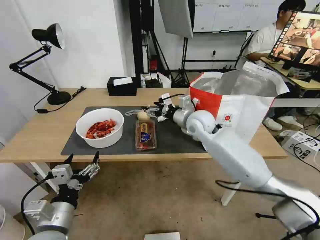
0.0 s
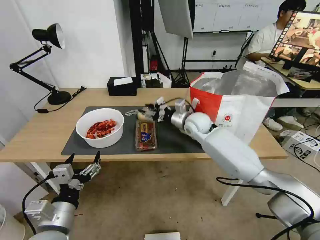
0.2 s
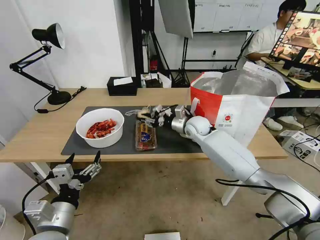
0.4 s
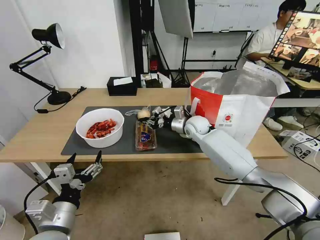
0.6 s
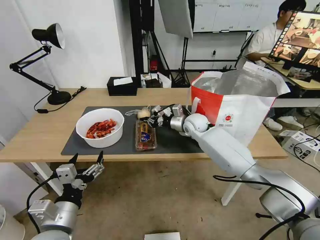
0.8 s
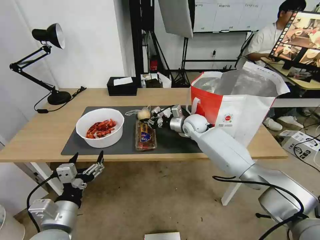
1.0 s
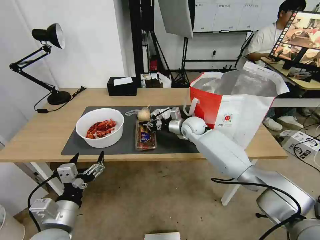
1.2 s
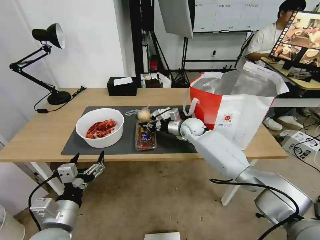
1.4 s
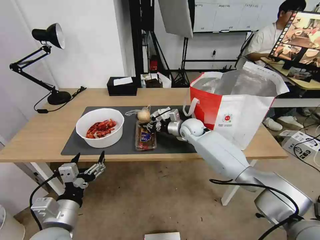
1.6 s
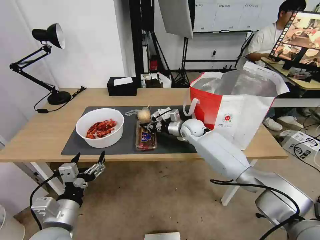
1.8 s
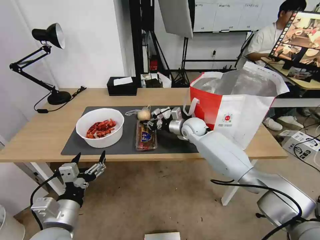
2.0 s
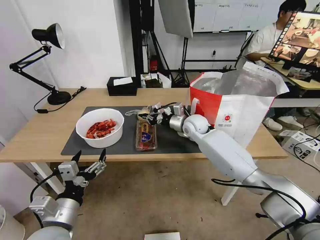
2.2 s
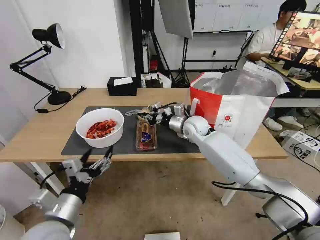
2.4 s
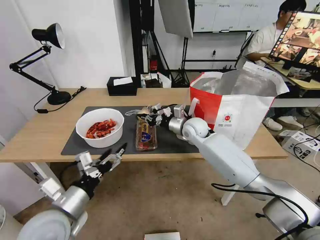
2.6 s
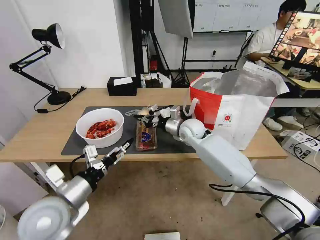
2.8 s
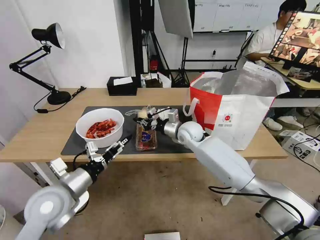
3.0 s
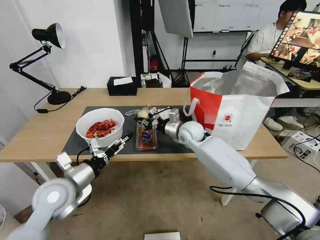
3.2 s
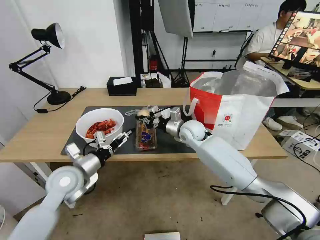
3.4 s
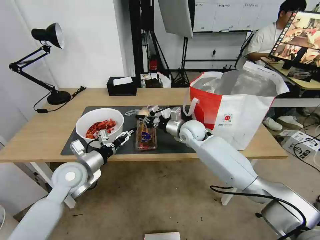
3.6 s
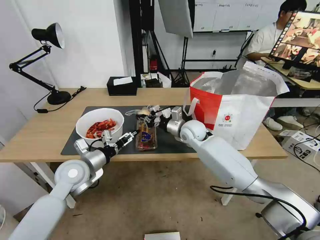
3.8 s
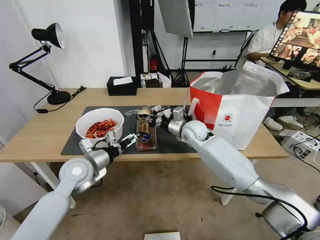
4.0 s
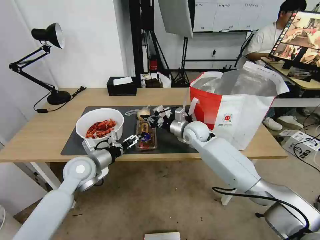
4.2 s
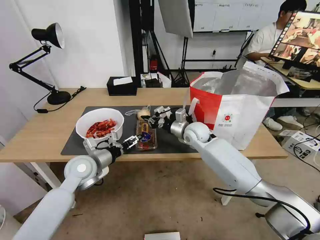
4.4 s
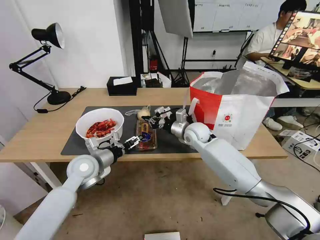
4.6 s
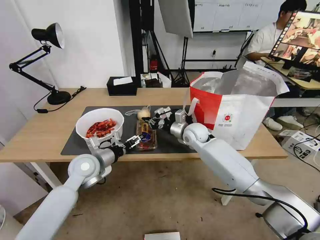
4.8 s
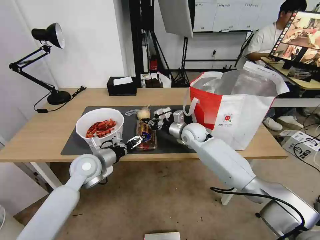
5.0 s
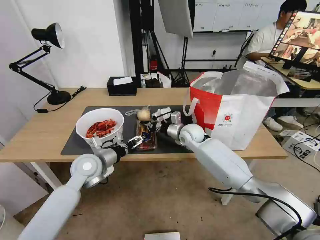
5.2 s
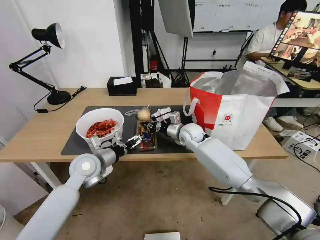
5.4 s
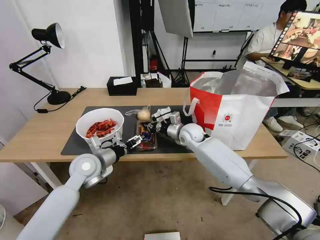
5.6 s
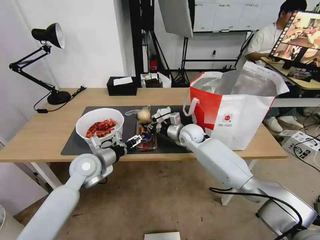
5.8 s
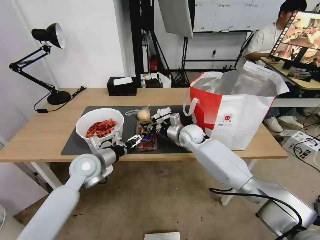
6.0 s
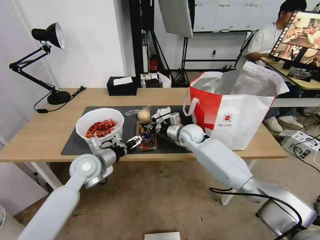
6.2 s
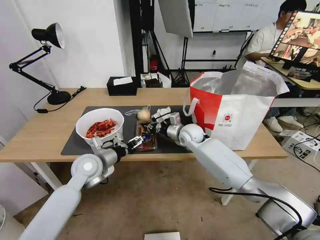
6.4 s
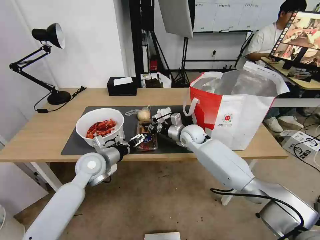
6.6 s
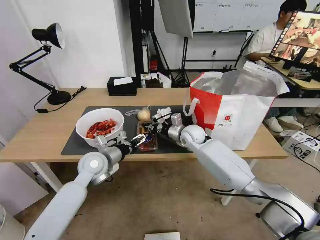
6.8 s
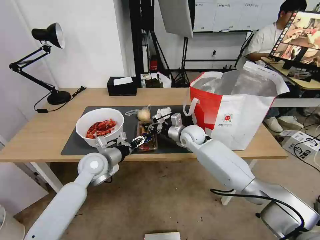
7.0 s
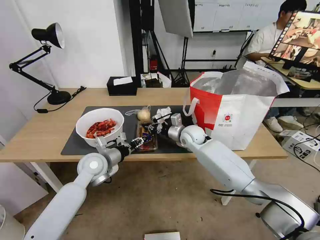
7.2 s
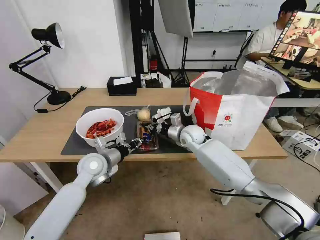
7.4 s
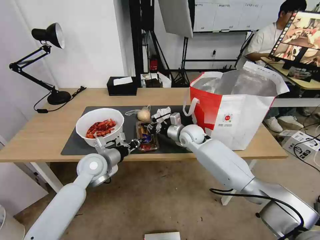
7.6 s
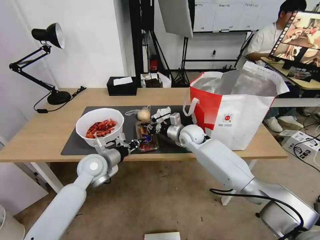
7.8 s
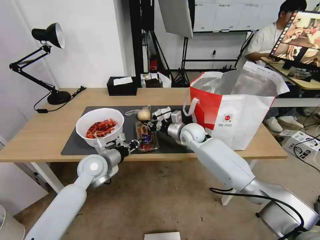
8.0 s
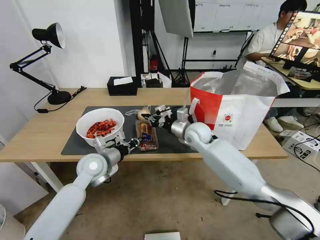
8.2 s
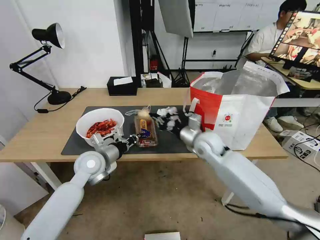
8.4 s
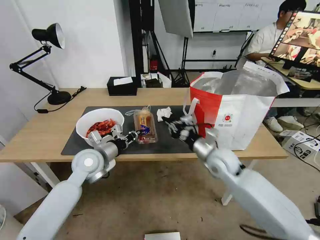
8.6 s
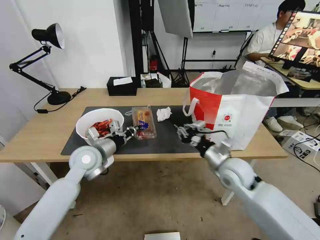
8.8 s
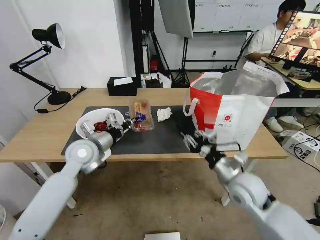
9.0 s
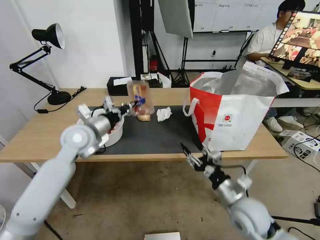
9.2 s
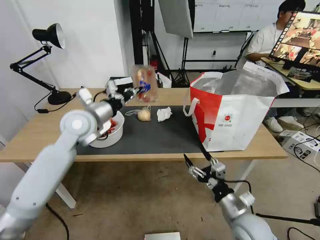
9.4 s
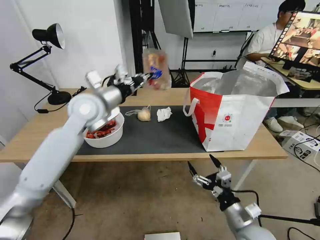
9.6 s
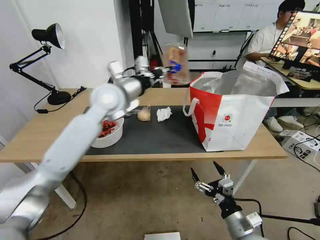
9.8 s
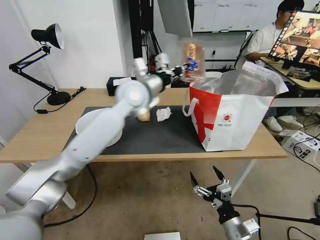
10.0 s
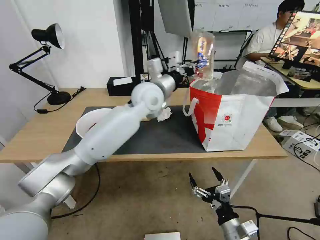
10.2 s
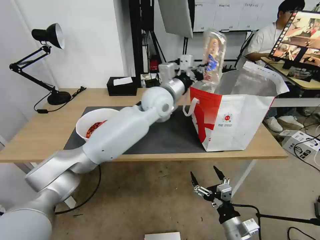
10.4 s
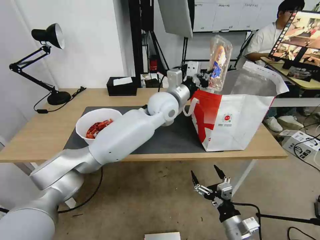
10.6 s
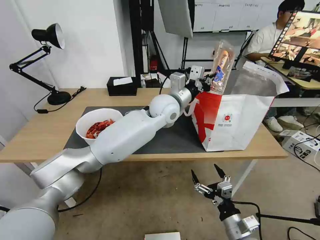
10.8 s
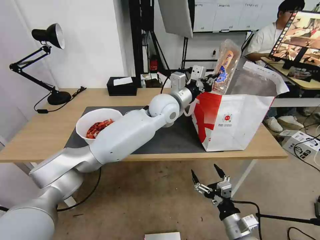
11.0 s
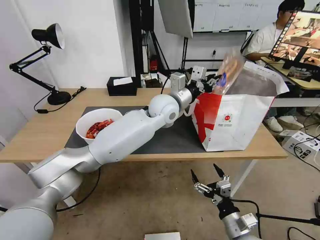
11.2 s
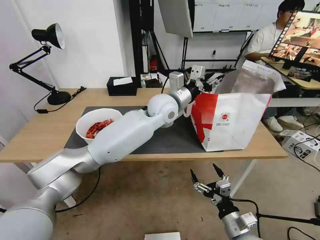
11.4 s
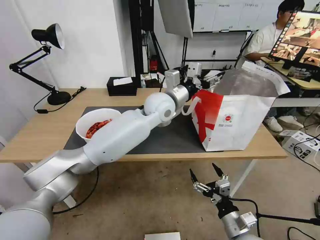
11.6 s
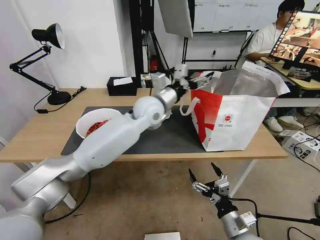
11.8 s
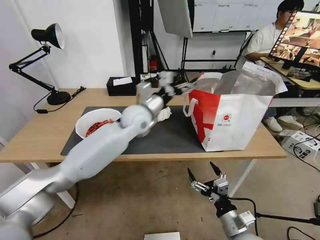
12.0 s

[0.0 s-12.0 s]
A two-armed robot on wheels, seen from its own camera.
Task of the whole recording: Pick up the trash from the table and place it into the takeout bag.
0.0 to 1.6 s: The right gripper moves downward and forward, approximately 10 cm, and closes.
1.6 to 3.0 s: The right gripper moves about 5 cm. The left gripper heads forward, covering roughly 10 cm.
3.0 to 4.4 s: The left gripper is displaced forward by about 10 cm.
4.4 to 6.0 s: The grippers stay close to where they were, moving slightly.
6.0 to 7.6 s: The left gripper closes its fingers.
7.6 to 9.0 s: The right gripper is displaced backward and to the right by about 25 cm, and opens, while the left gripper goes some 5 cm upward.
9.0 to 10.4 s: The right gripper goes roughly 20 cm backward and downward, and opens its fingers. The left gripper travels to the right, upward and forward by about 30 cm.
10.4 to 12.0 s: The left gripper heads to the left and downward, covering approximately 10 cm, and opens.

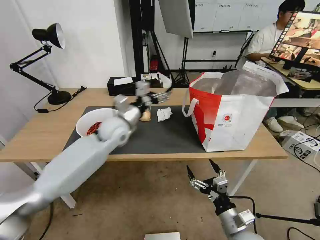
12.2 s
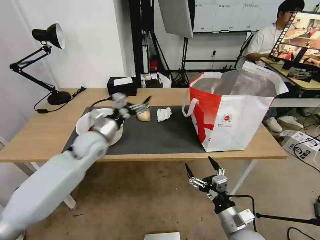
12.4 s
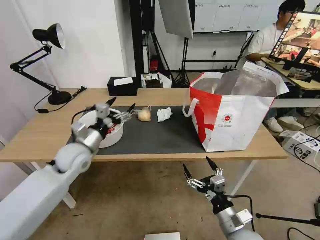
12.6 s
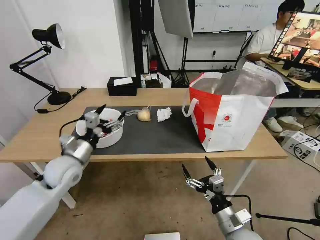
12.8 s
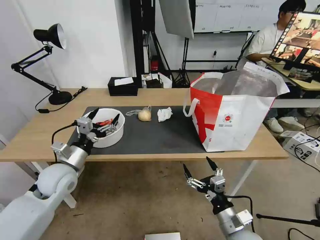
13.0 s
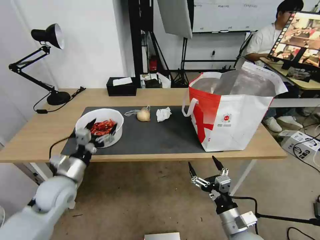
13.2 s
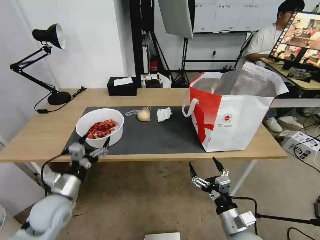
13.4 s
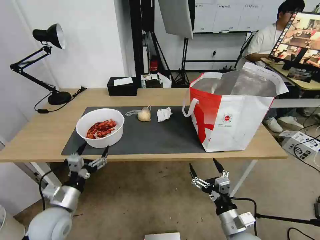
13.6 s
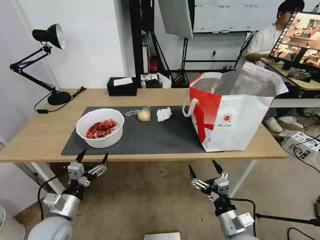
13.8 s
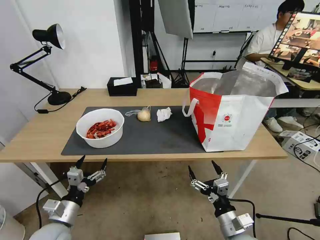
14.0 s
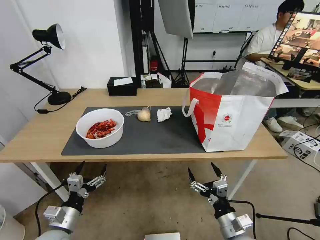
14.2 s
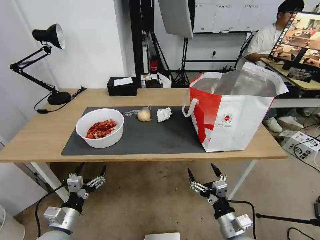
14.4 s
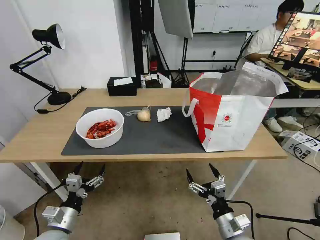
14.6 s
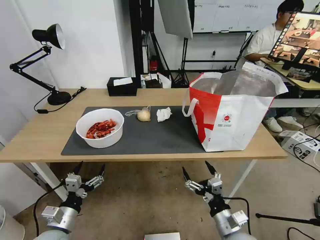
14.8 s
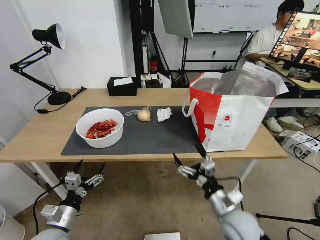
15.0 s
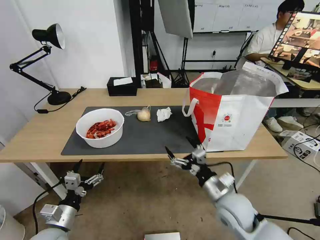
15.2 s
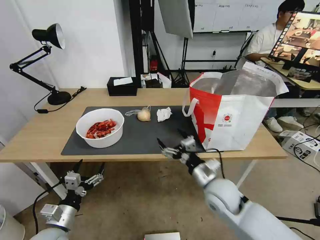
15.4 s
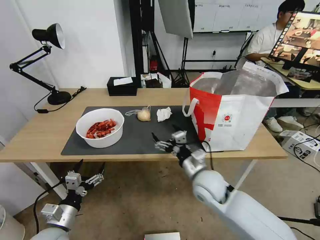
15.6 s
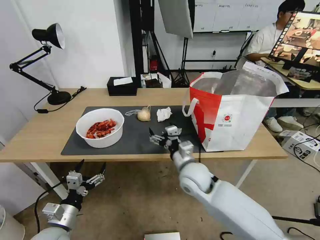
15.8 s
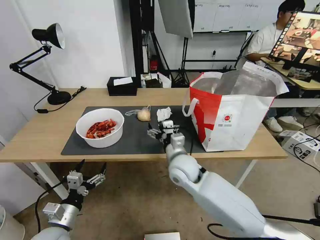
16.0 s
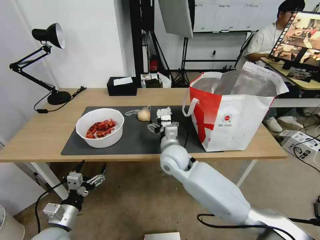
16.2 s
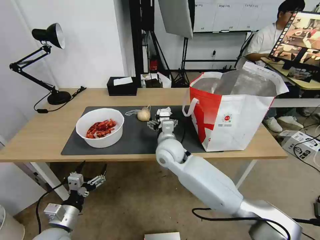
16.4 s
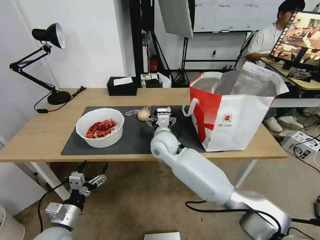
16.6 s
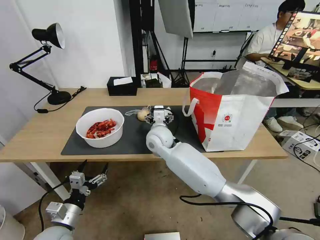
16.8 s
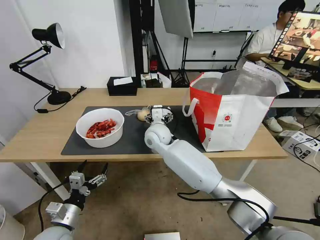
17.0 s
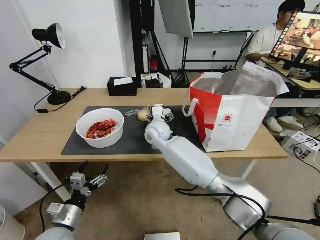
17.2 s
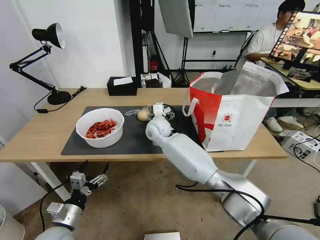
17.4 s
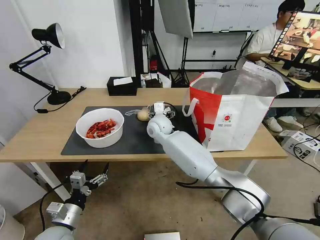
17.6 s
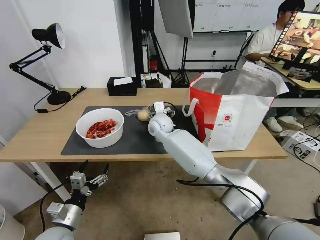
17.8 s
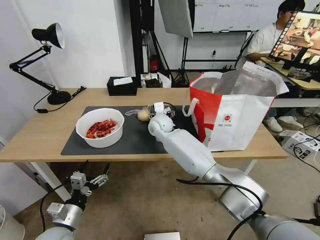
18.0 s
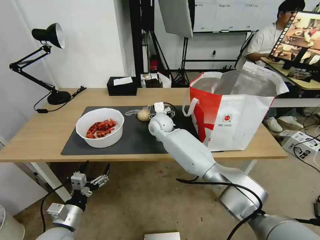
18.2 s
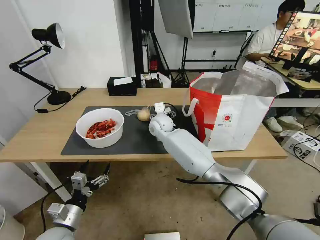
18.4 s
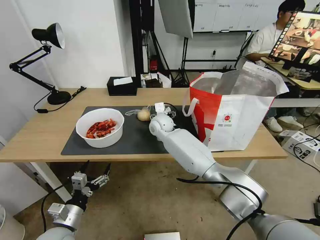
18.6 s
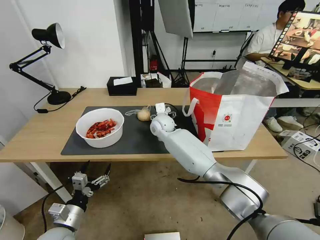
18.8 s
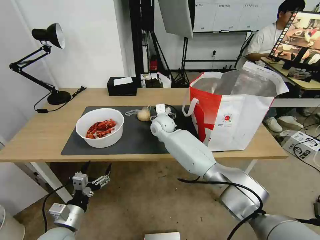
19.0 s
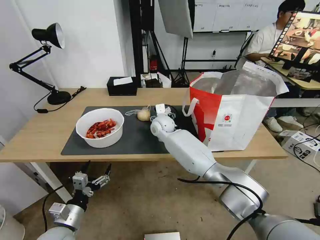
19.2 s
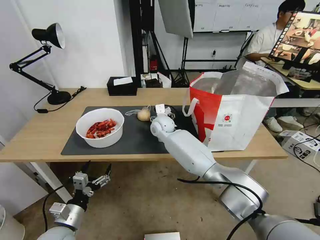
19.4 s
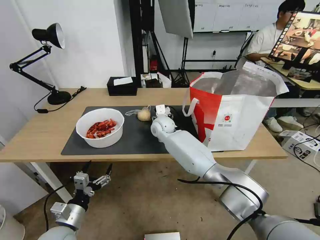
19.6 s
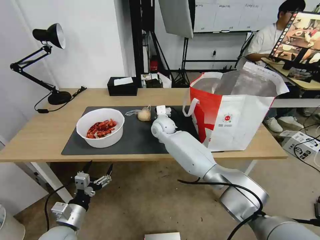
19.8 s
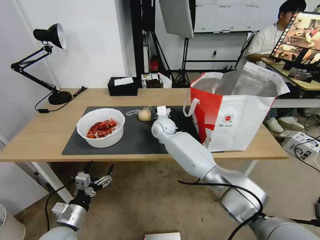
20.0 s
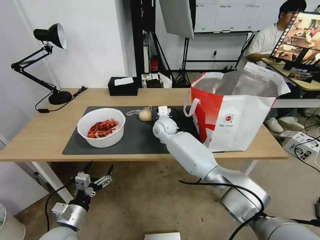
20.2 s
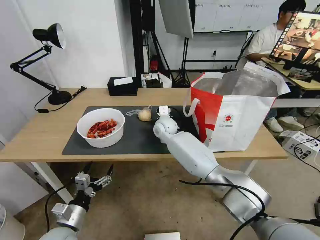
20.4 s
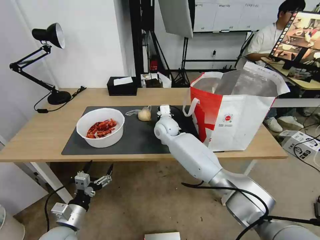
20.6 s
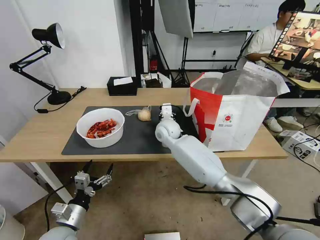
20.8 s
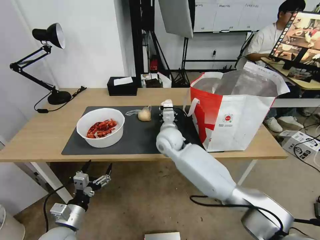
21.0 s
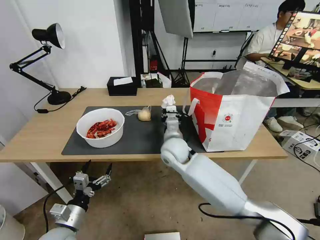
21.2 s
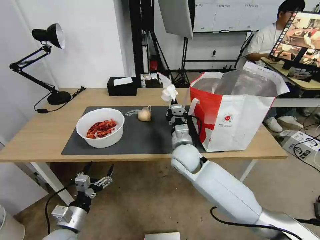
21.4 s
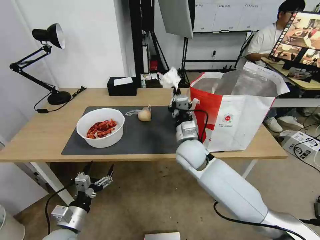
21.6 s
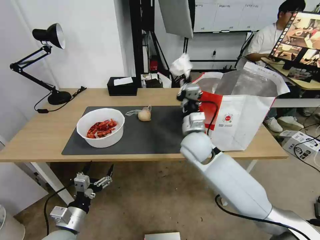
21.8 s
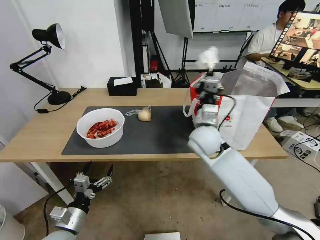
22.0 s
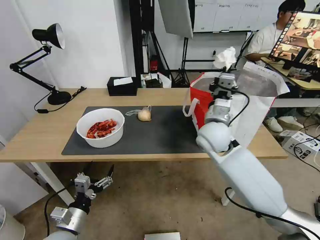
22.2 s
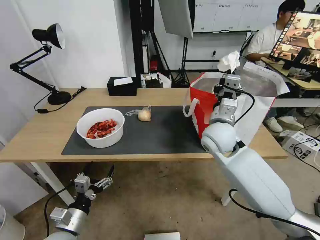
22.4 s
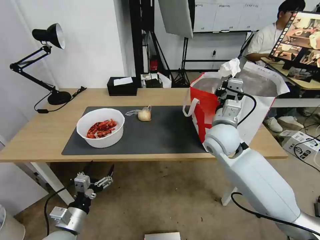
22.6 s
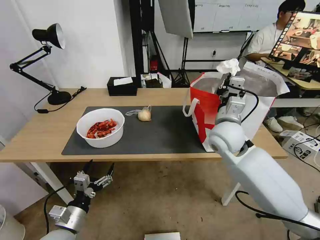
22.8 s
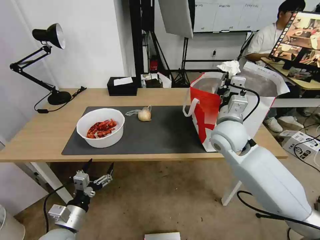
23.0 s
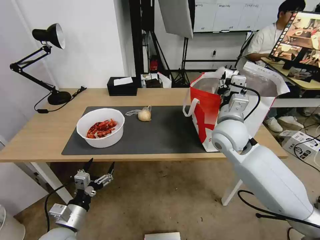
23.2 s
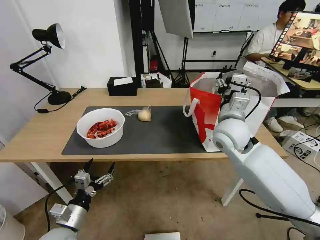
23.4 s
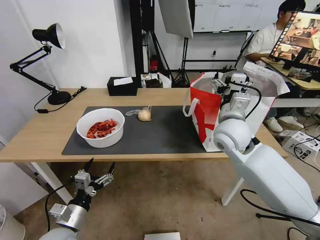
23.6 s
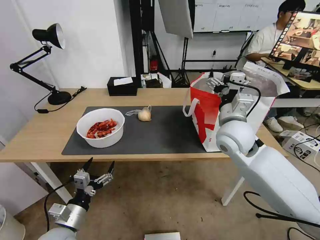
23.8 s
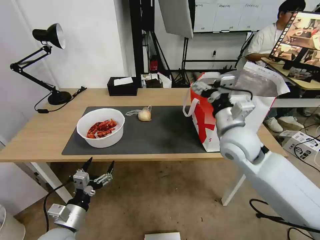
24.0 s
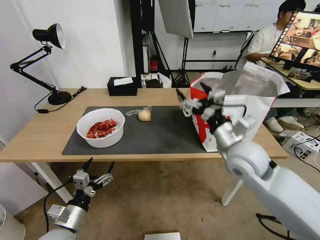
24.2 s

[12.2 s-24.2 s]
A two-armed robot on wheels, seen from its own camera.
Task of the whole recording: Pick up the trash from the table and place it into the takeout bag.
12.2 to 13.8 s: The left gripper shifts approximately 30 cm backward, downward and to the left.
13.8 to 15.2 s: The right gripper shifts some 10 cm forward and upward.
15.2 to 16.6 s: The right gripper is displaced forward and to the left by about 30 cm.
16.6 to 18.2 s: The right gripper heads forward, covering roughly 10 cm.
18.2 to 19.8 s: The right gripper closes its fingers.
19.8 to 21.2 s: The right gripper goes some 15 cm backward, and closes its fingers.
21.2 to 22.6 s: The right gripper moves to the right and upward, roughly 15 cm.
22.6 to 24.2 s: The right gripper moves backward, about 5 cm, and opens its fingers.
